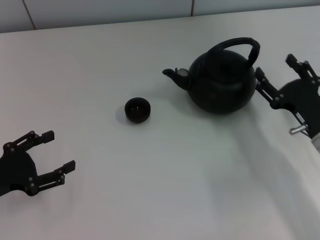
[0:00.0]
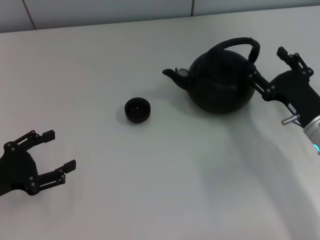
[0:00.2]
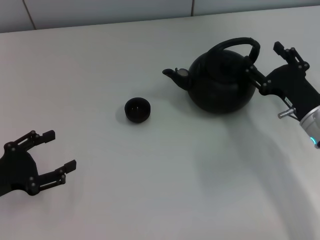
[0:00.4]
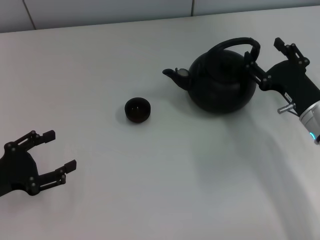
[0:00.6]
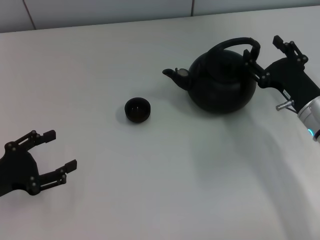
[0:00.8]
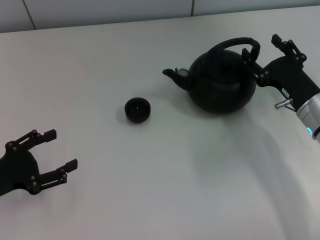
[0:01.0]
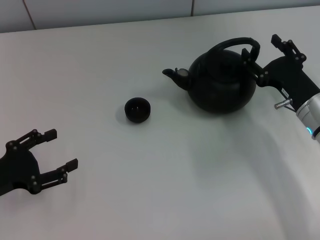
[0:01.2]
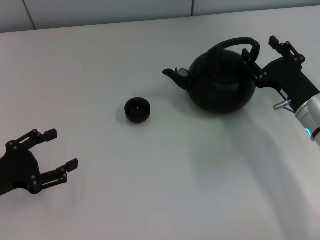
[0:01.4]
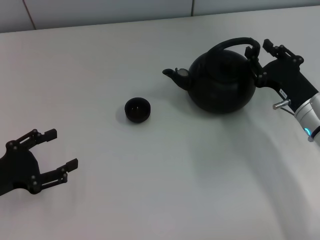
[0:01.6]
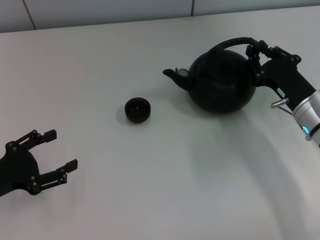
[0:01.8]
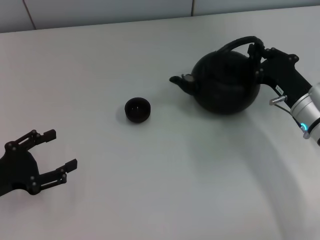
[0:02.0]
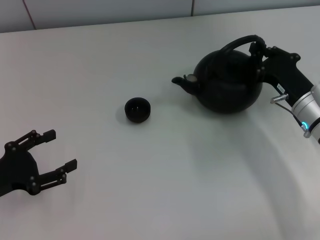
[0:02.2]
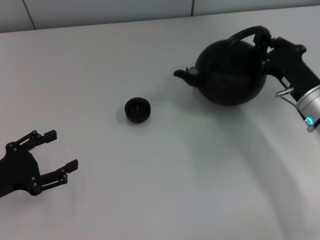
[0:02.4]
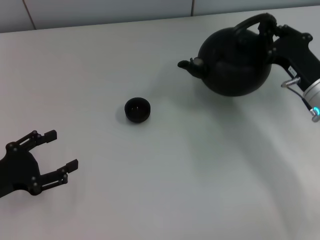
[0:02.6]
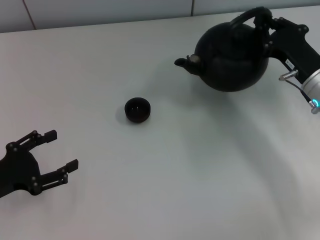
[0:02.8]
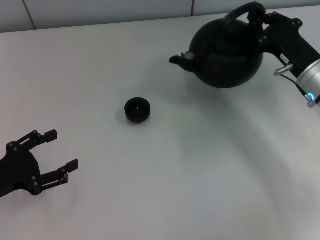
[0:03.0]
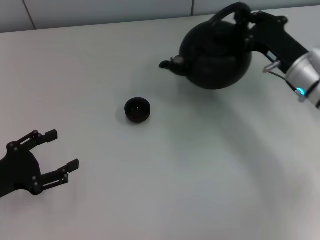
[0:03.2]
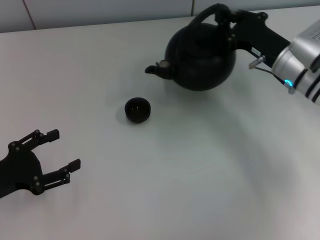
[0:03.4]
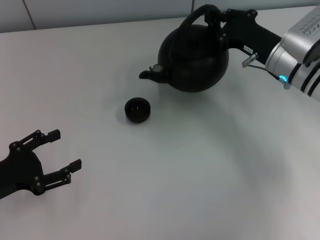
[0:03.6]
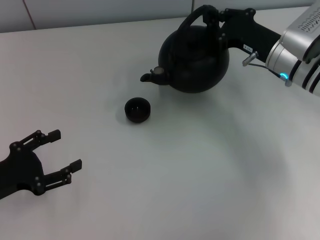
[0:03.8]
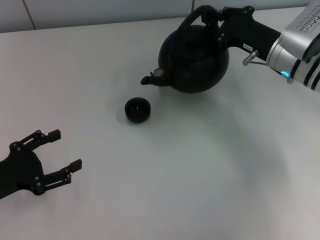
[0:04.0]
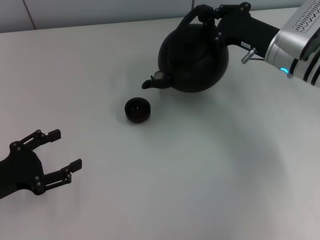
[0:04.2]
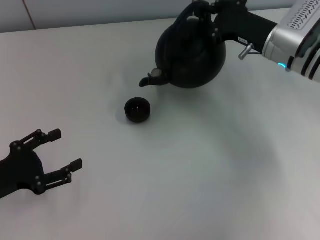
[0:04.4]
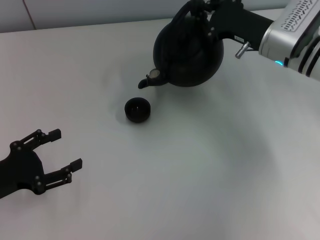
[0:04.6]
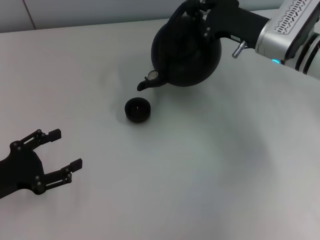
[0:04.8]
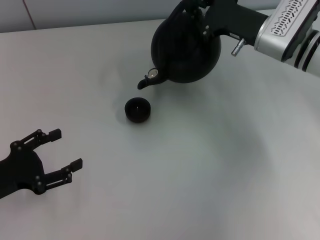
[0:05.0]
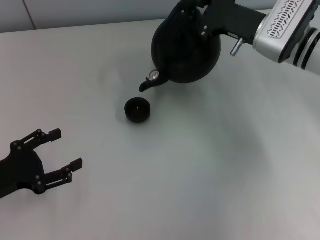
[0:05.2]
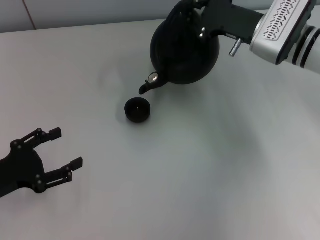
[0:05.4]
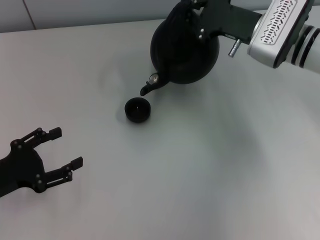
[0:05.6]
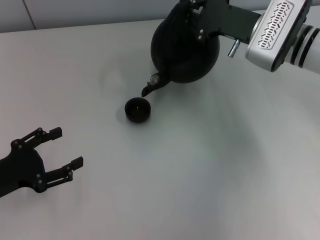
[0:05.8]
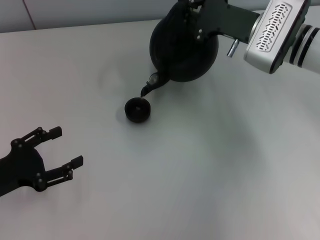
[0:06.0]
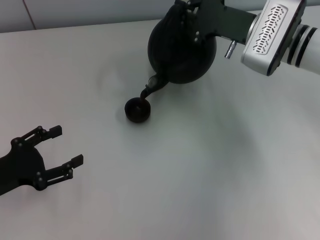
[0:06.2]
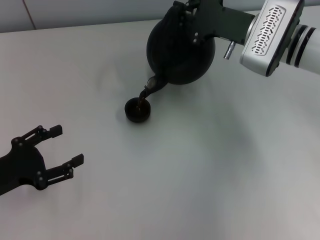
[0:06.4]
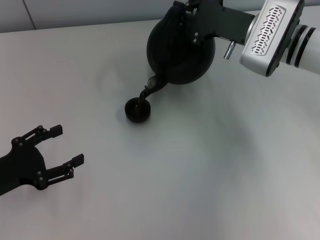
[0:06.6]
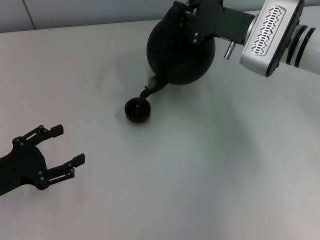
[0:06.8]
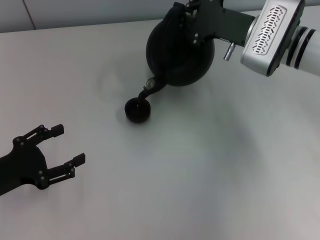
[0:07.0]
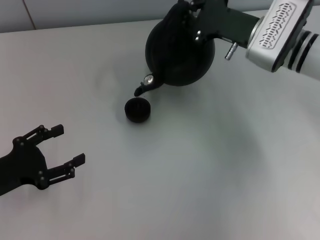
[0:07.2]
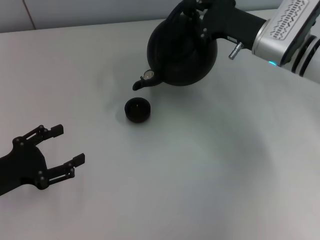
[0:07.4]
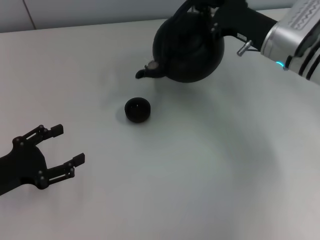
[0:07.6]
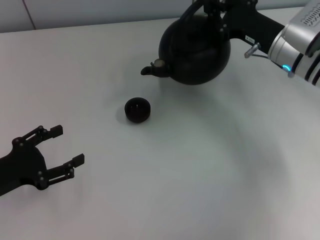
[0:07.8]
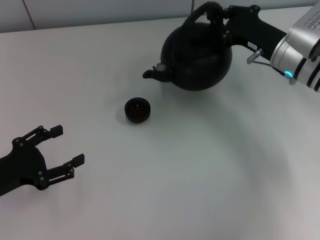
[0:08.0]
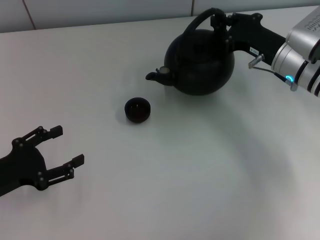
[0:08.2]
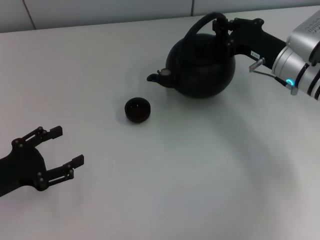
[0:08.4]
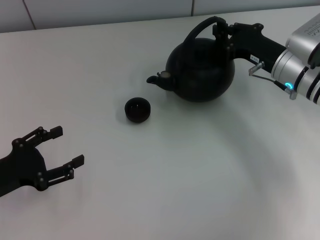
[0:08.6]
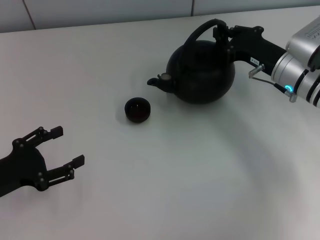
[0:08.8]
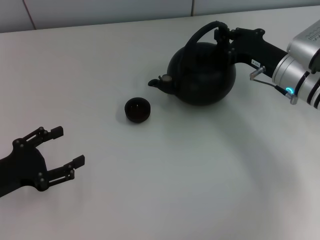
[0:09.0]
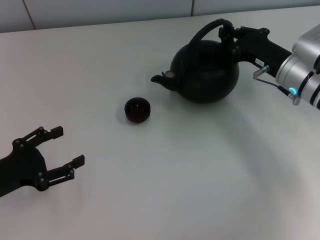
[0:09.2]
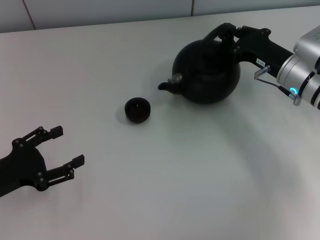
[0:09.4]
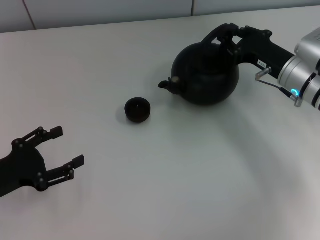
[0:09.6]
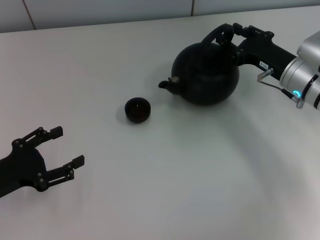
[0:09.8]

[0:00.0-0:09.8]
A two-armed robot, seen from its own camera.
Task of the whole recording: Grasp the handle of the teapot with one hand and pour tea into the teacup.
Step, 0:00.0 to 0:02.6: Pick up the teapot with the right gripper.
0:00.0 to 0:01.4: The grippers make only small movements.
0:01.4 to 0:02.8: The right gripper closes up.
0:02.8 to 0:04.2: The right gripper goes about 5 cm forward.
0:05.6 to 0:07.0: The grippers stay close to where they were, moving slightly.
0:07.0 to 0:08.4: The right gripper ends up about 5 cm from where it was.
0:08.4 to 0:09.8: The grippers make only small movements.

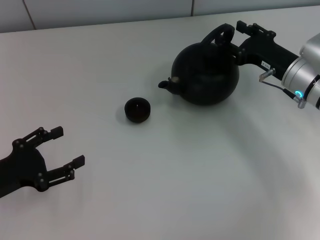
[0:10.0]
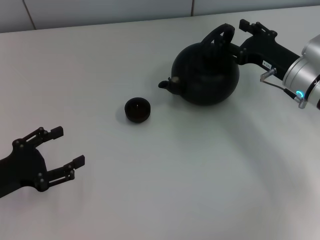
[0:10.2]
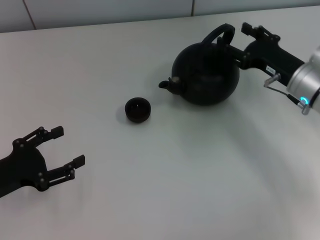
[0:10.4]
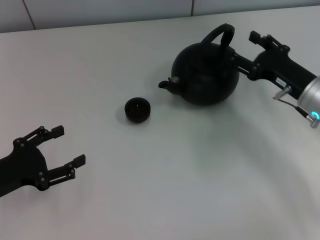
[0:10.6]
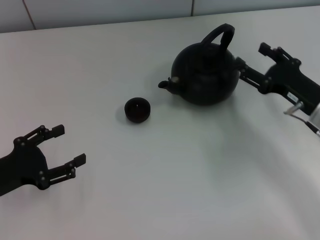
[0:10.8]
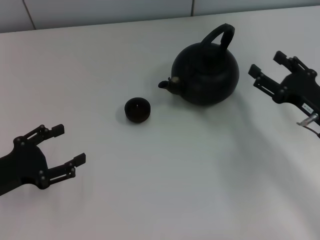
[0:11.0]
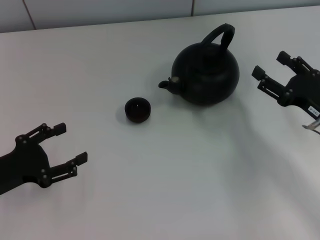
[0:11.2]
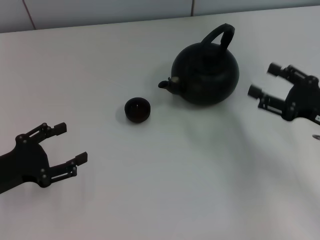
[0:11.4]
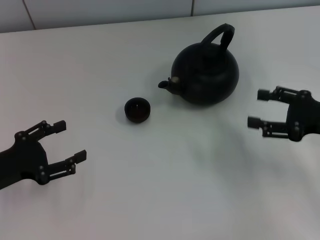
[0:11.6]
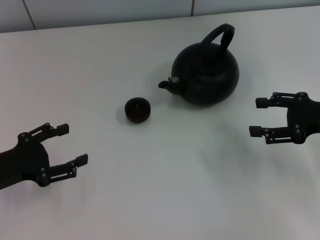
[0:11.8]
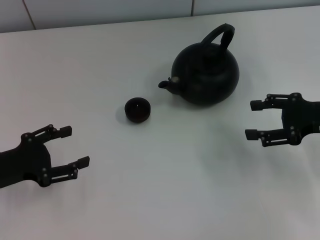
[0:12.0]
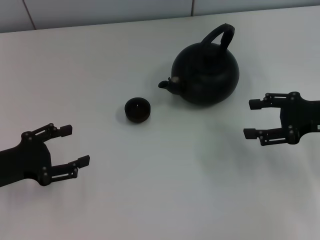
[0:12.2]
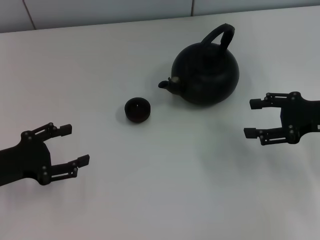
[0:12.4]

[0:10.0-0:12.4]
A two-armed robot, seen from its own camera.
Task of the whole recording: Grasp the handle of the teapot with one hand and pour tea into the teacup.
0:10.0 to 0:11.2: The right gripper goes some 10 cm backward, and opens its fingers.
0:11.2 to 0:12.4: The right gripper goes some 5 cm upward.

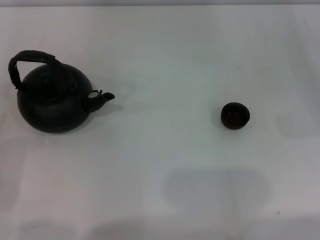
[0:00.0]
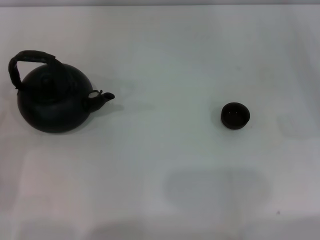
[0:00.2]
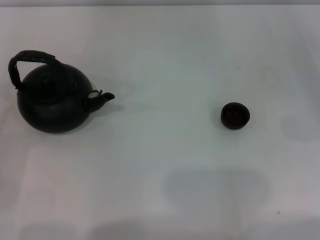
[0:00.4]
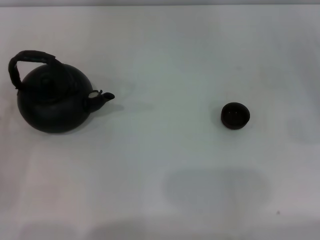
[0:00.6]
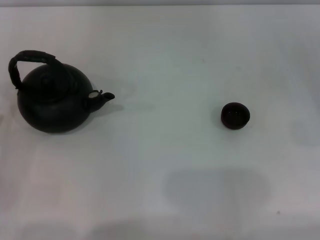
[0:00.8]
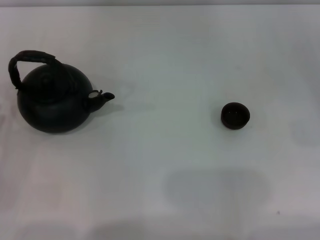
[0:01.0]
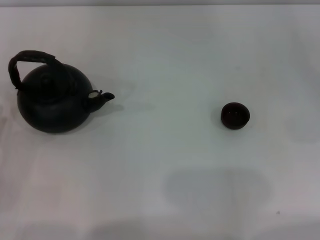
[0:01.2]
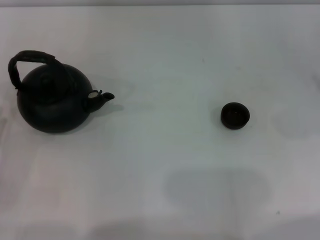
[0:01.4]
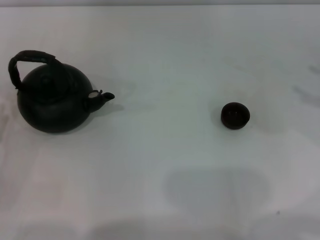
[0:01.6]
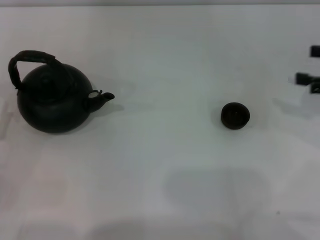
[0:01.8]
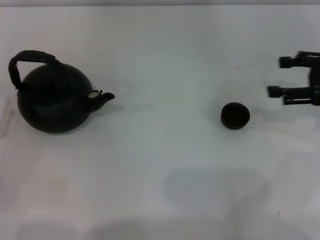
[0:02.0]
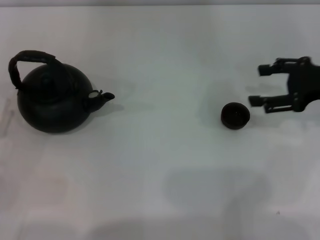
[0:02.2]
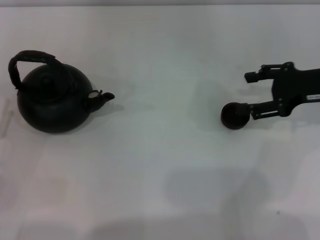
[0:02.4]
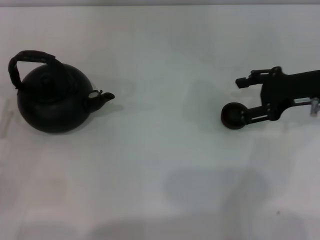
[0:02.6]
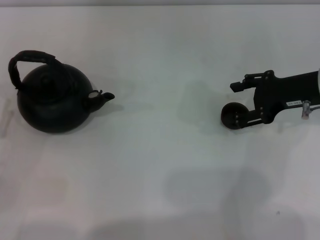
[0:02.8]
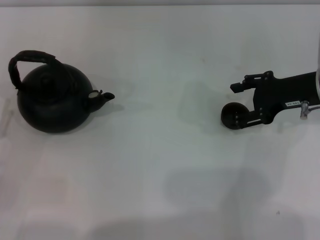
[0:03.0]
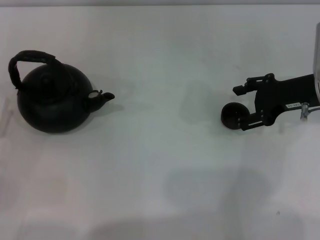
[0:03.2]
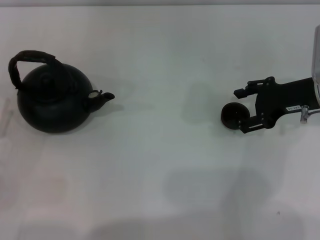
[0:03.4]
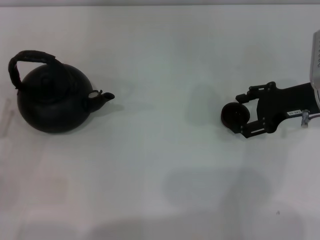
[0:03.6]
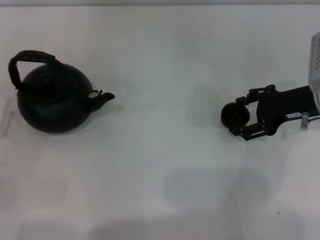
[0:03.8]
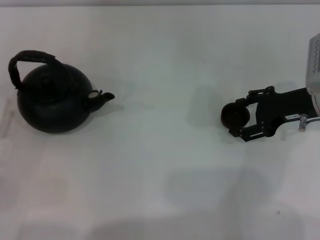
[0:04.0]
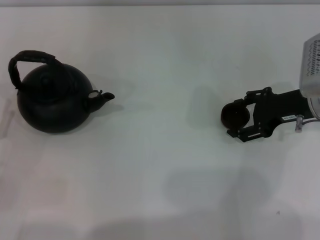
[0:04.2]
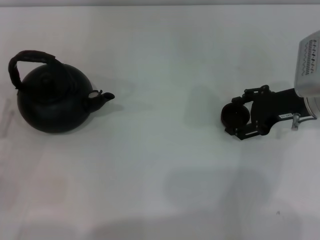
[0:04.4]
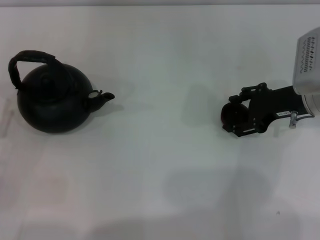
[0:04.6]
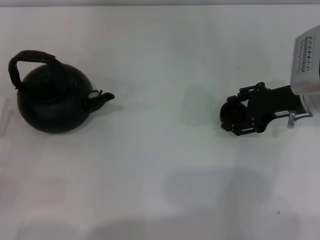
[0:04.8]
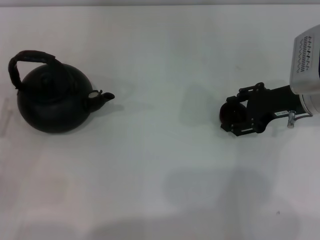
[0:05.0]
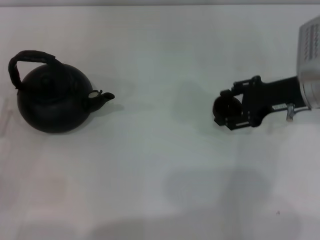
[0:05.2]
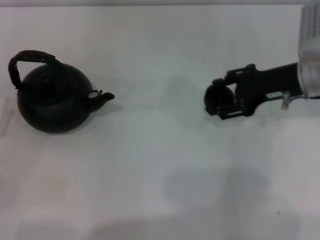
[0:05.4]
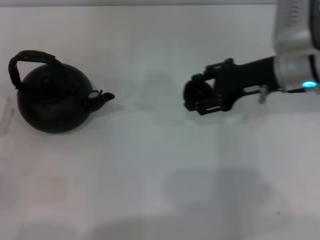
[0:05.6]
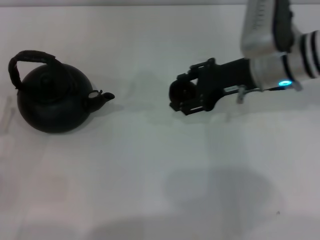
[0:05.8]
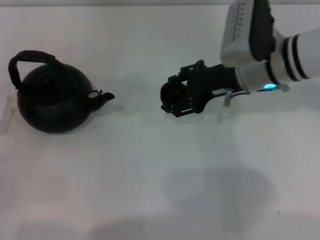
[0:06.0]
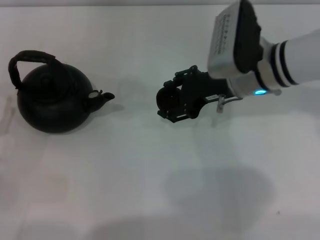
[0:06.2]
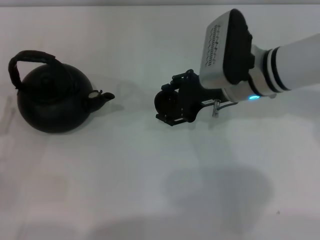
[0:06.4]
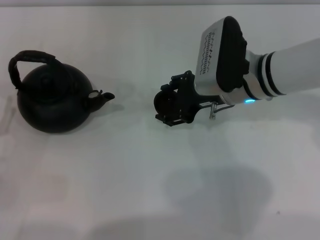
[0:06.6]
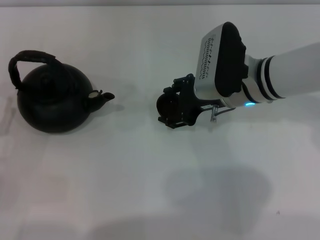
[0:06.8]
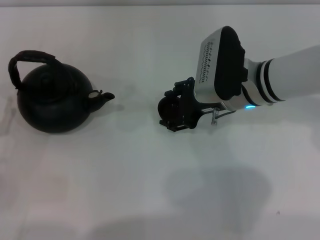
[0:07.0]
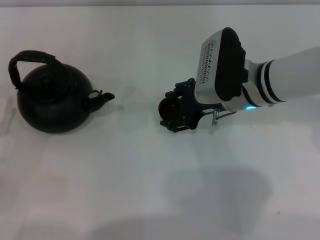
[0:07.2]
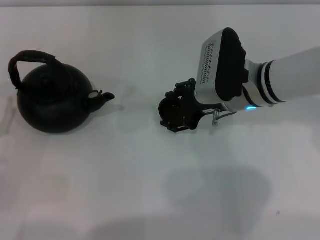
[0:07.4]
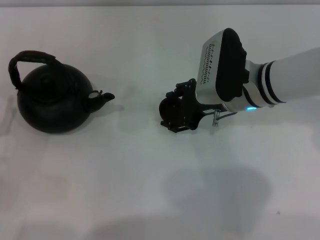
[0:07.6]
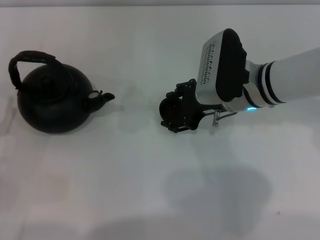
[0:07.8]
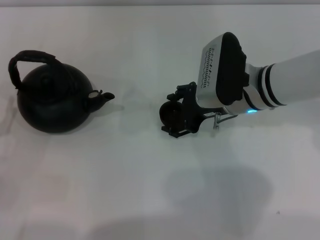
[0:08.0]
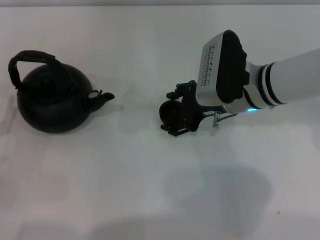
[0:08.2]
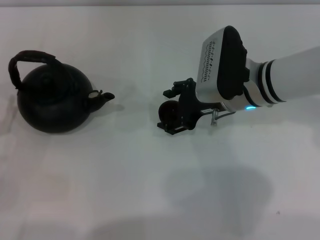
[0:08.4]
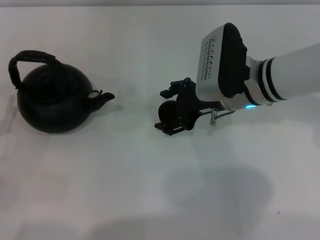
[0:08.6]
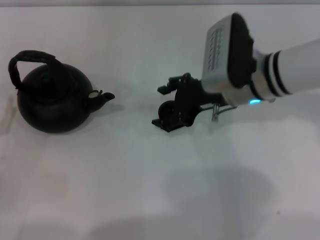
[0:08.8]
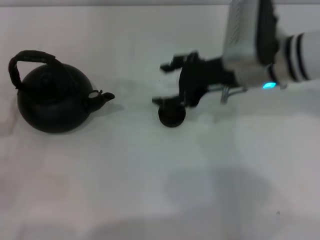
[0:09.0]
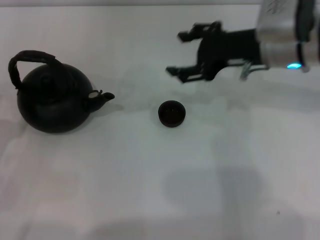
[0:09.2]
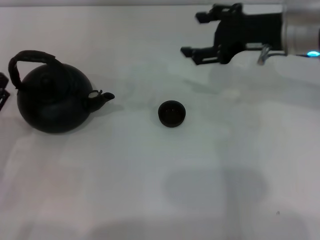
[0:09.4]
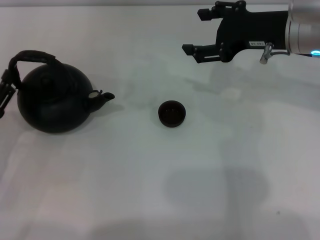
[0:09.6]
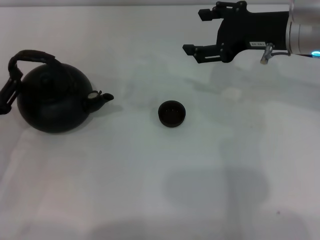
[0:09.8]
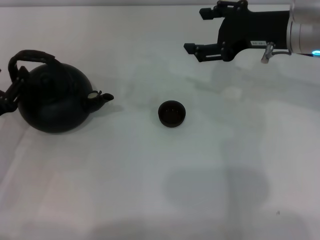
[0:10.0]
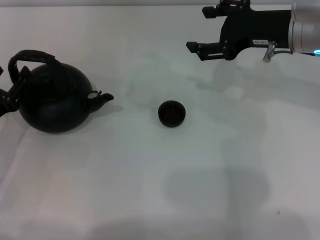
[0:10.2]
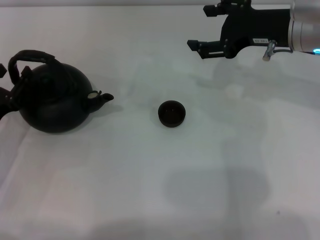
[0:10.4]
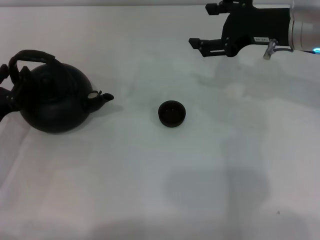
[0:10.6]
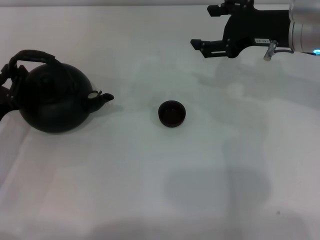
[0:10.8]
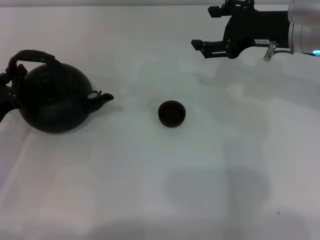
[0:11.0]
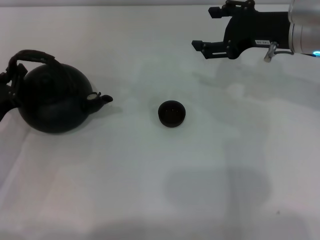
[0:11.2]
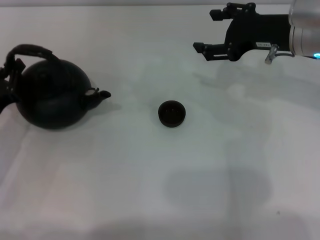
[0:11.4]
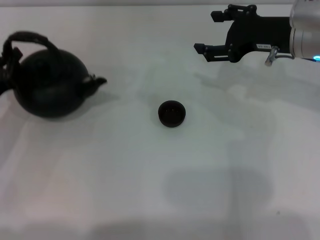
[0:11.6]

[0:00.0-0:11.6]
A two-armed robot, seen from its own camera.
Task of the whole recording: Grasp the handle of the teapot with one hand and pour tea into the teacup.
Step, 0:00.0 to 0:05.2: Pick up the teacup with the right gripper.
Step, 0:05.4 to 0:09.0: Place the teacup in the center of view with the right gripper.
0:01.4 to 0:02.8: The right gripper moves to the left and forward, roughly 15 cm.
0:02.8 to 0:04.4: The grippers make only small movements.
0:04.4 to 0:05.8: The right gripper is displaced to the left by approximately 10 cm.
0:05.8 to 0:07.2: The right gripper ends up some 5 cm from where it was.
0:07.2 to 0:08.8: The grippers stay close to where they were, moving slightly.
0:08.8 to 0:10.2: The left gripper ends up about 5 cm from where it was, while the right gripper is displaced to the right and upward by roughly 10 cm.
0:10.2 to 0:11.6: The left gripper closes.
